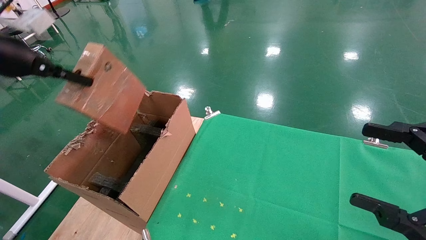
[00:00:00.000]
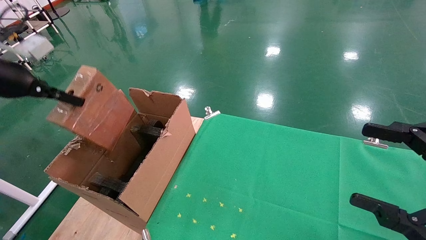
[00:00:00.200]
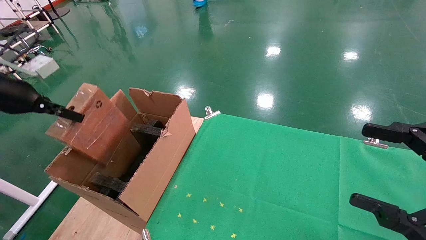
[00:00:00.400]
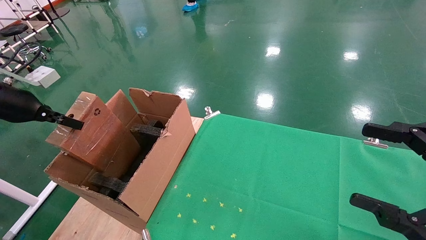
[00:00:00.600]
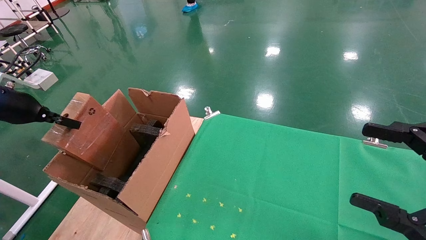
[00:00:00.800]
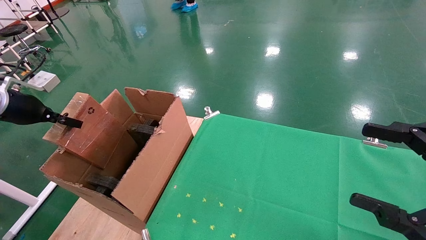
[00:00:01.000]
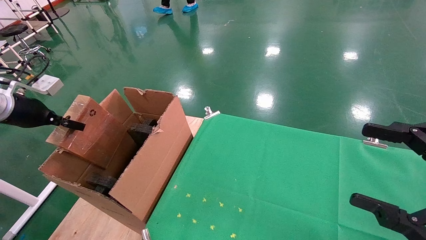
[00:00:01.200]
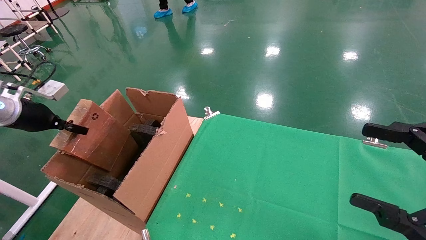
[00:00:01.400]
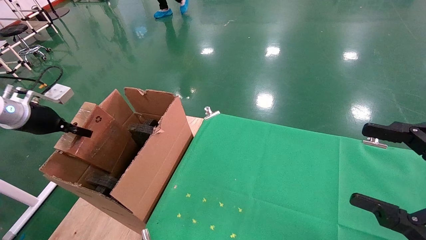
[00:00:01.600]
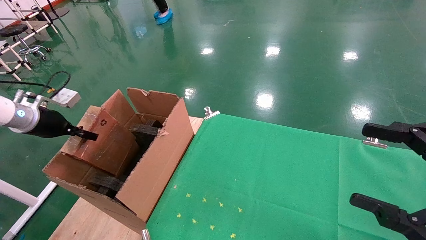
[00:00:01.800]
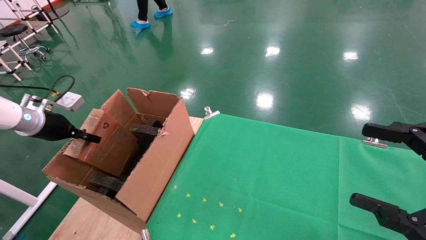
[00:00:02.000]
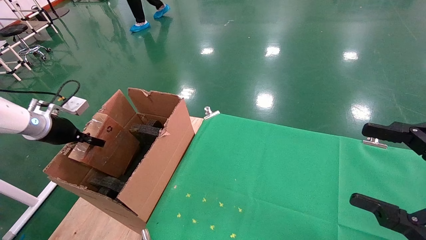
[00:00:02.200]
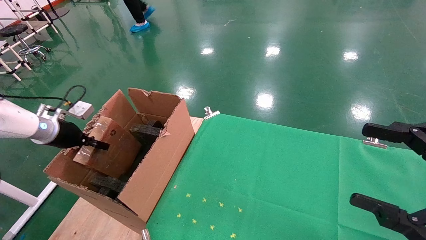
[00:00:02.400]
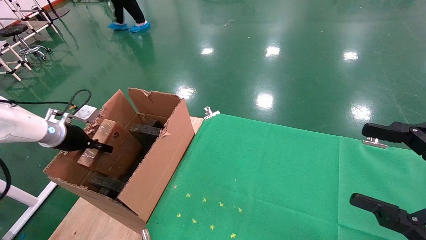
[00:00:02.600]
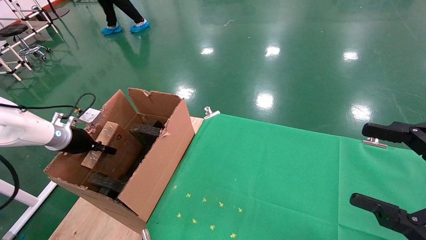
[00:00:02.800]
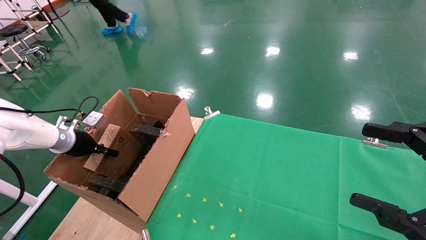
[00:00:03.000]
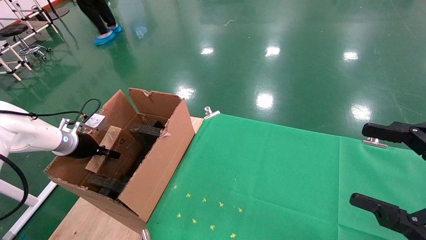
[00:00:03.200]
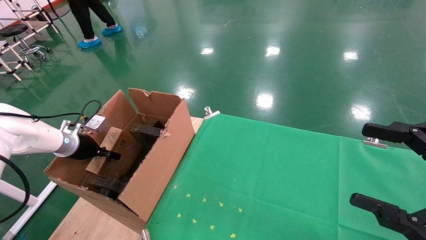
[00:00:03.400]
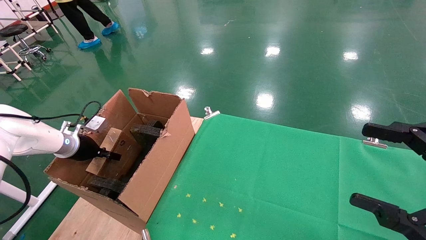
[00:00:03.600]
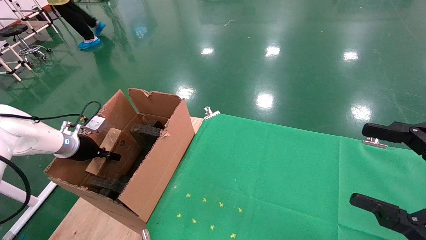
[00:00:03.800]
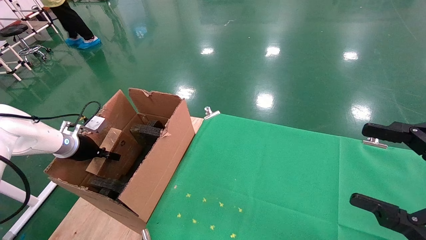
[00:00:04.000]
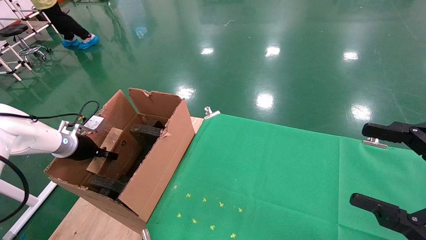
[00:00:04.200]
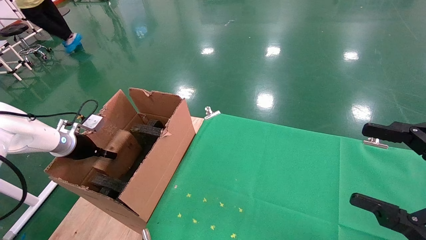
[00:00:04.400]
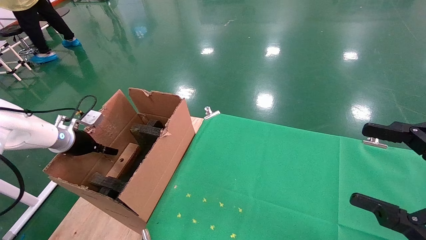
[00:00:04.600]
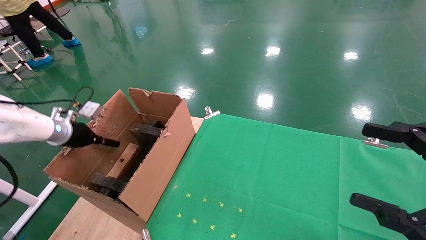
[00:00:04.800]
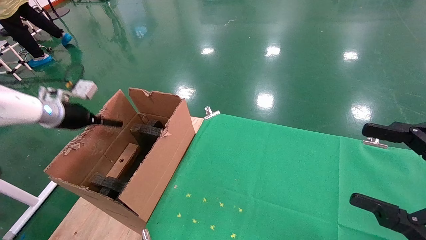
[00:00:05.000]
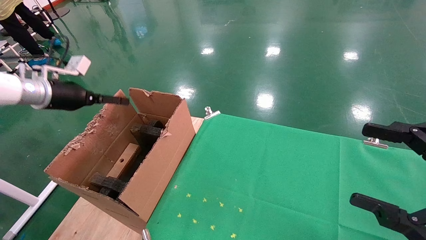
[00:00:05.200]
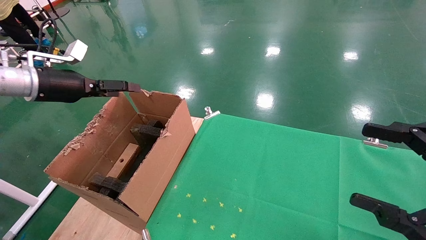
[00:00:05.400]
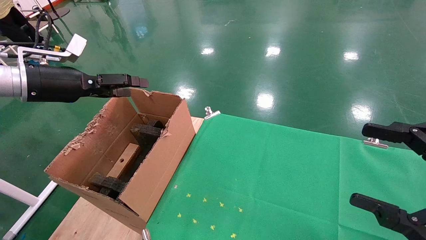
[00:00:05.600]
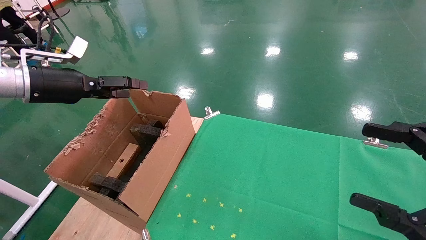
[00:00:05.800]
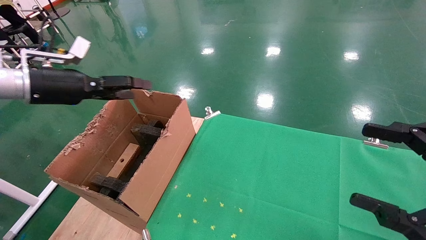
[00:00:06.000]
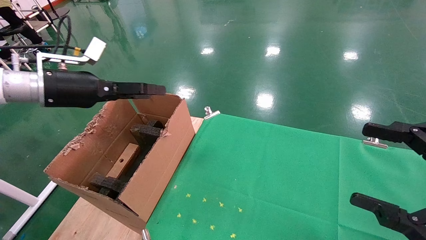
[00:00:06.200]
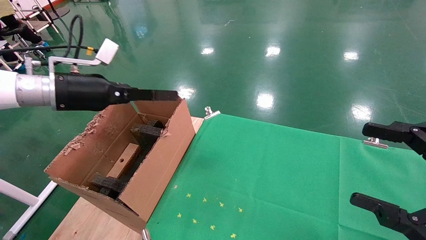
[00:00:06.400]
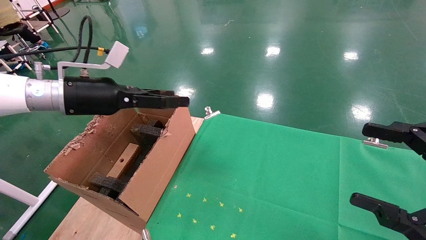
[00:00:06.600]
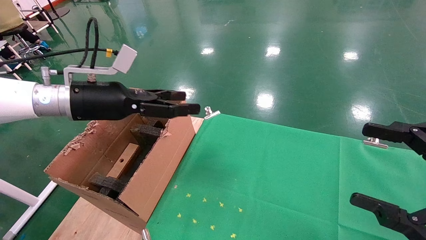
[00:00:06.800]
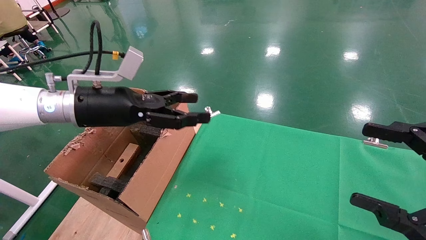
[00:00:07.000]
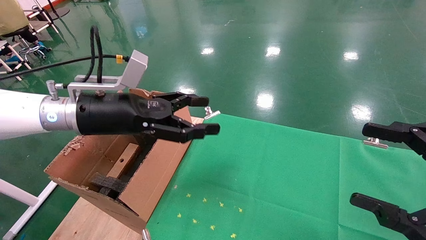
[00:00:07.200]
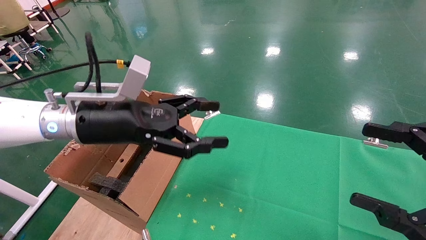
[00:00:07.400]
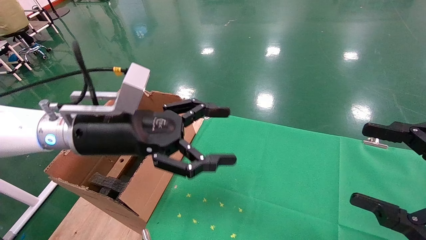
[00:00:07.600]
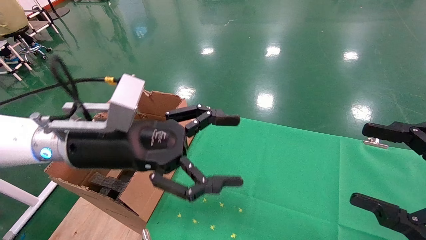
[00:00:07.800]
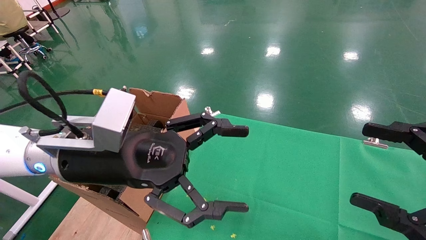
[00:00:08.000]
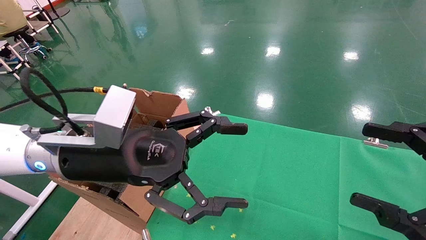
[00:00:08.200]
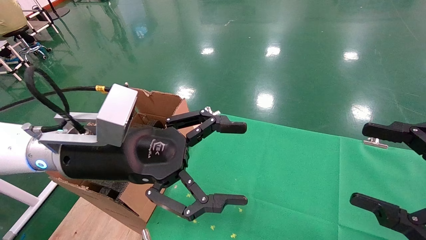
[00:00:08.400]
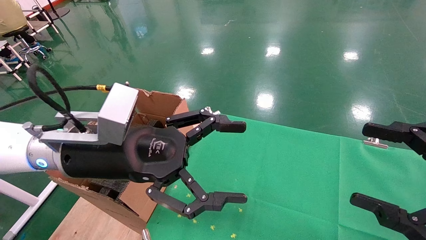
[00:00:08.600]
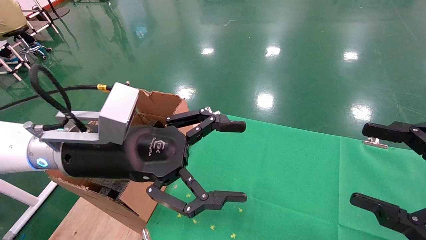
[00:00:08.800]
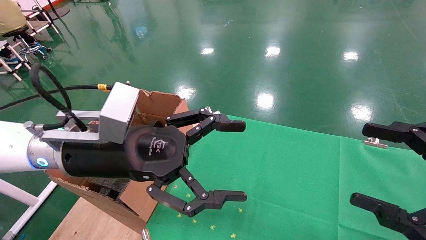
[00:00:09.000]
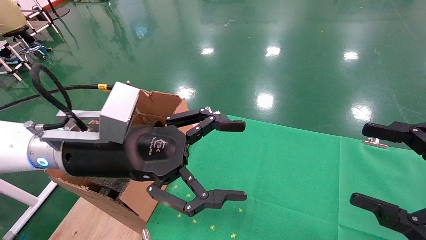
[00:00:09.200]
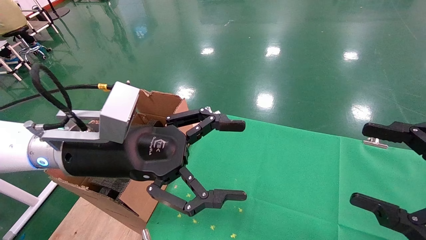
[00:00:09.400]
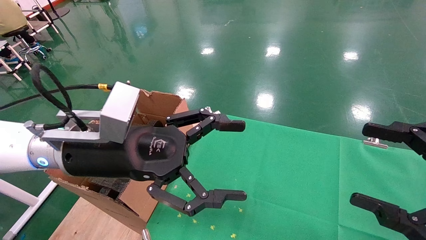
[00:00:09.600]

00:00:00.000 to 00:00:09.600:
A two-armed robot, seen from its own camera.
Task of the whole recording: using a robotic arm to pick up a cardboard box and palace it the carton.
Step, 00:00:00.000 to 00:00:05.200: Place the mouse and the power cord paper box into the container.
00:00:00.000 to 00:00:01.600: The left gripper is displaced downward, to the left and forward by some 20 cm.
00:00:01.600 to 00:00:03.200: The left gripper heads downward and forward, covering some 10 cm.
00:00:03.200 to 00:00:04.800: The left gripper opens its fingers.
00:00:04.800 to 00:00:06.400: The left gripper heads to the right, upward and backward, covering roughly 20 cm.
00:00:06.400 to 00:00:08.000: The left gripper moves to the right and backward, some 20 cm.
00:00:08.000 to 00:00:09.600: Both grippers stay put.
